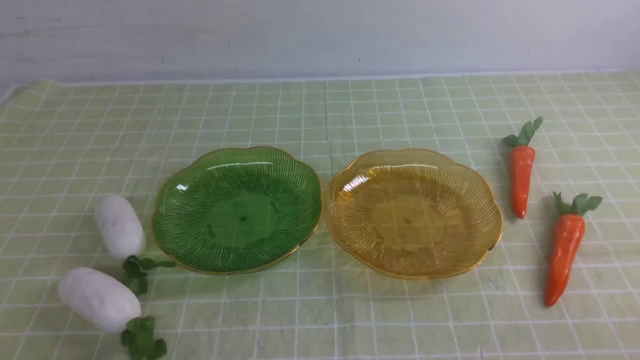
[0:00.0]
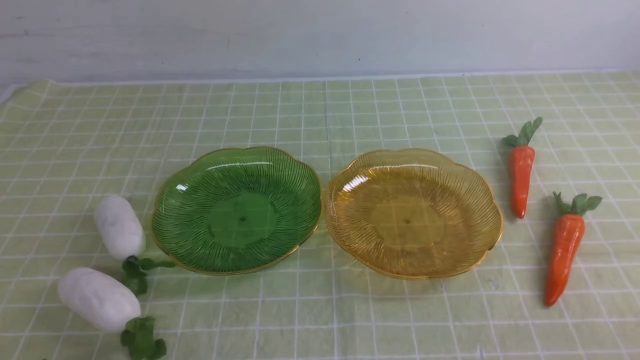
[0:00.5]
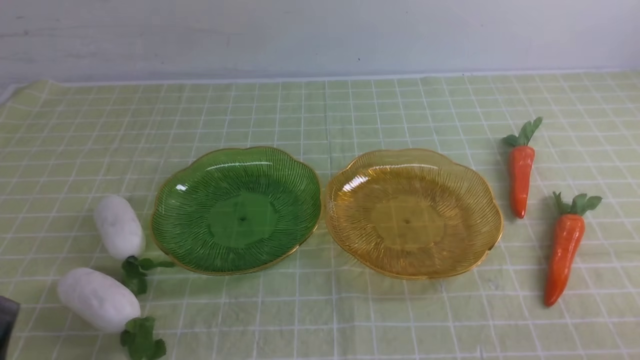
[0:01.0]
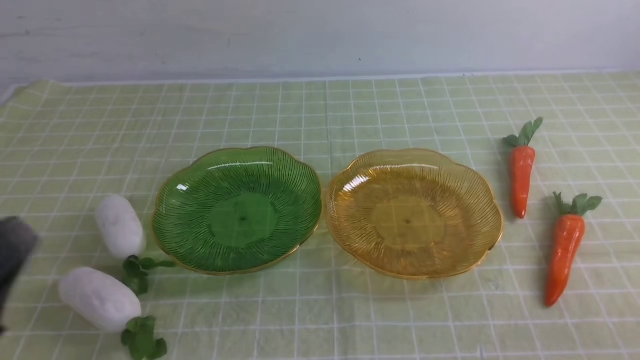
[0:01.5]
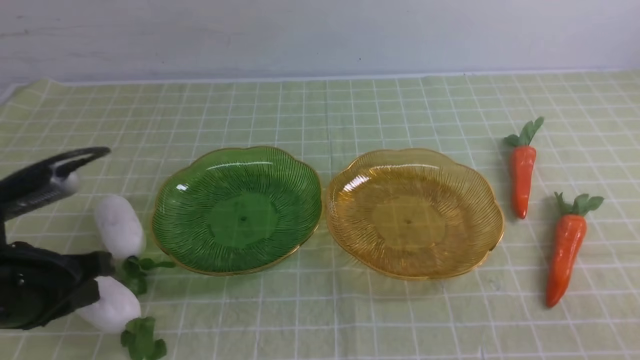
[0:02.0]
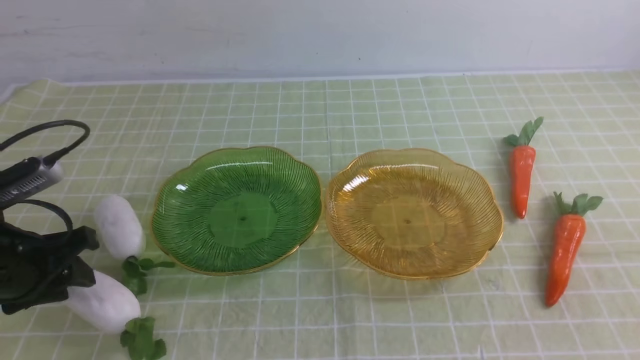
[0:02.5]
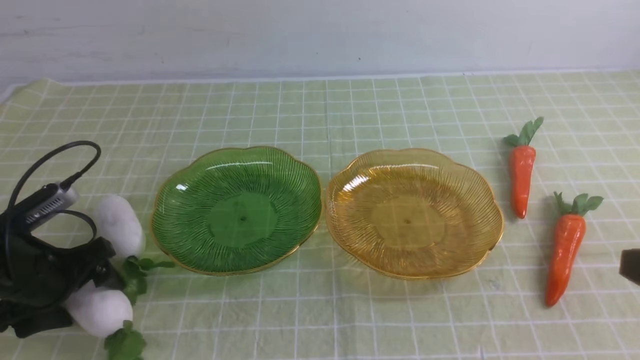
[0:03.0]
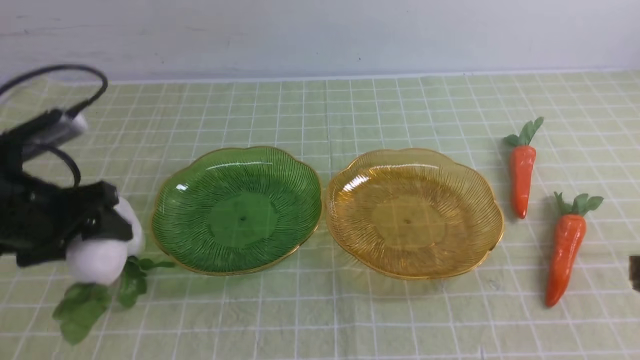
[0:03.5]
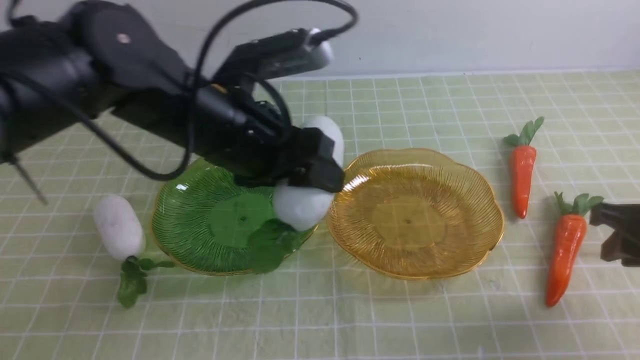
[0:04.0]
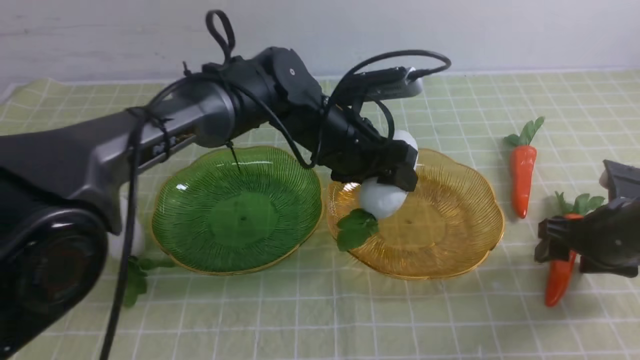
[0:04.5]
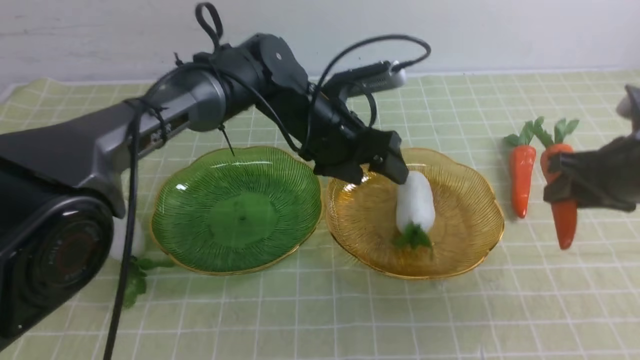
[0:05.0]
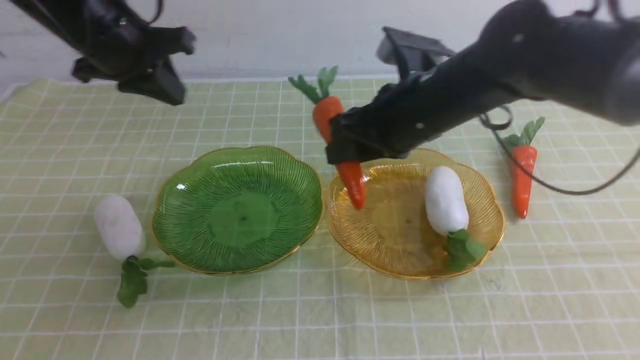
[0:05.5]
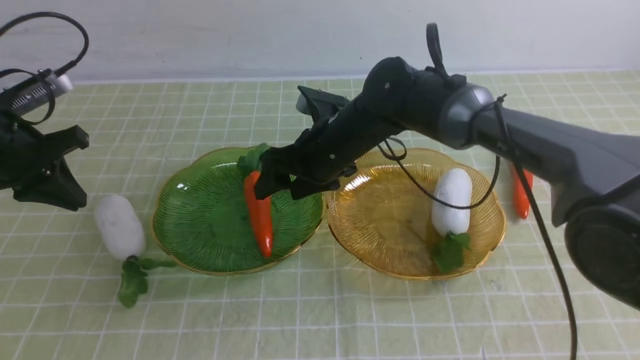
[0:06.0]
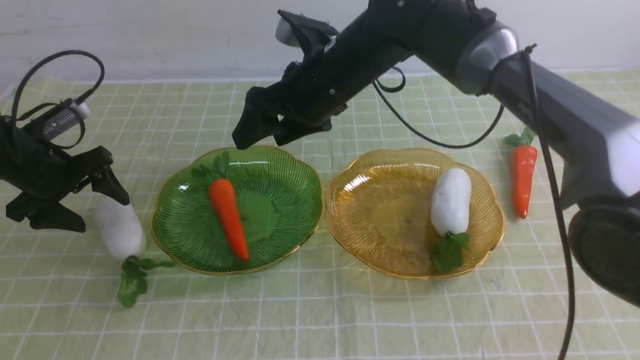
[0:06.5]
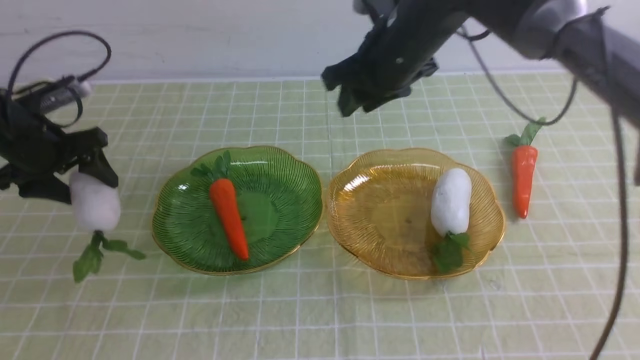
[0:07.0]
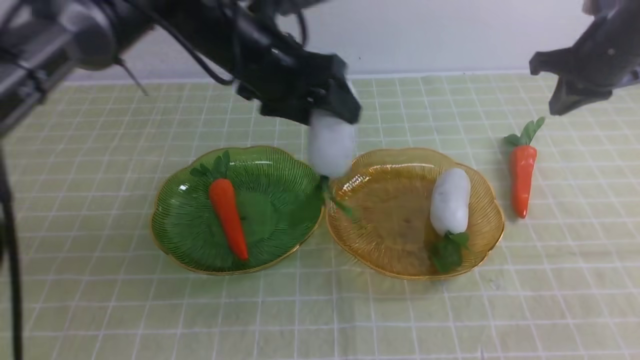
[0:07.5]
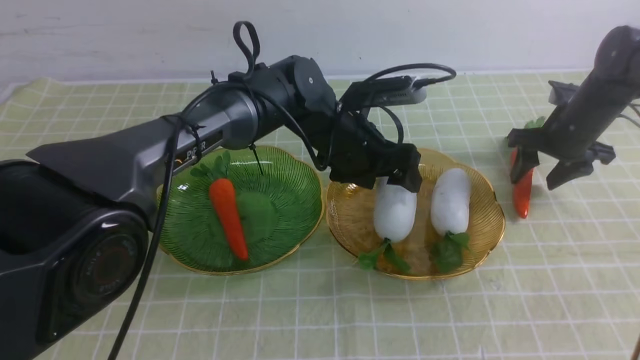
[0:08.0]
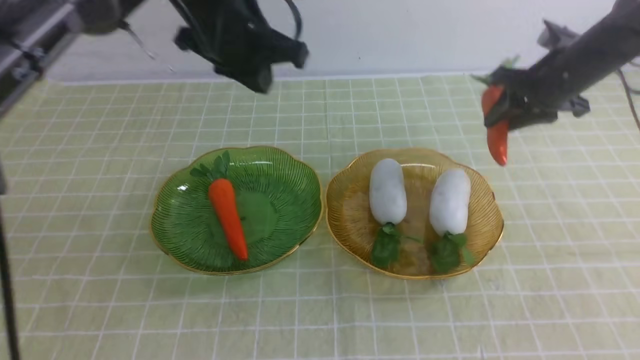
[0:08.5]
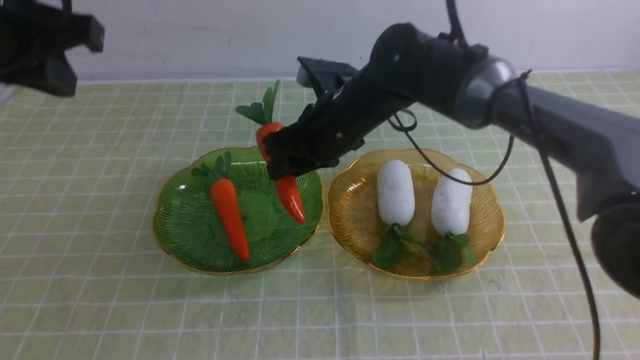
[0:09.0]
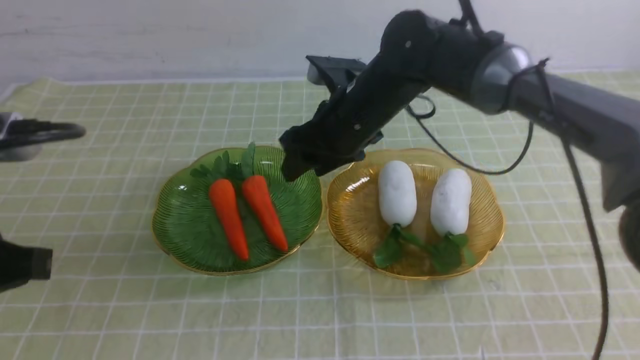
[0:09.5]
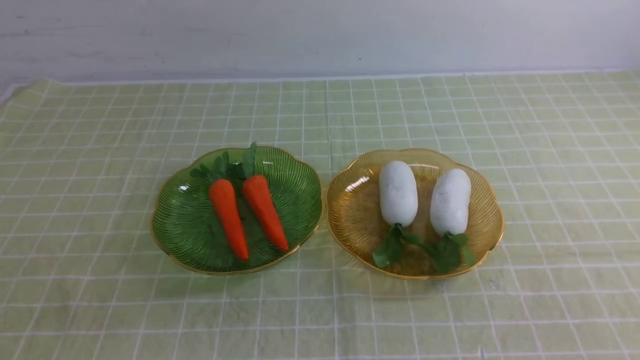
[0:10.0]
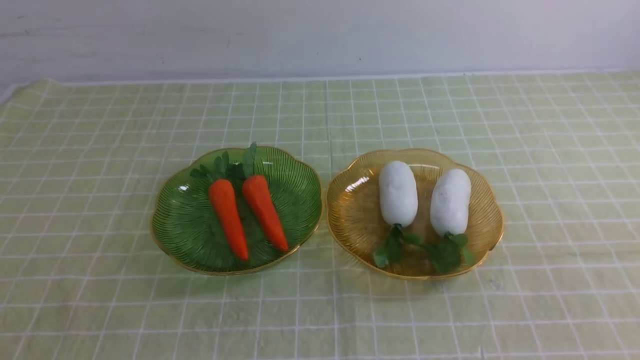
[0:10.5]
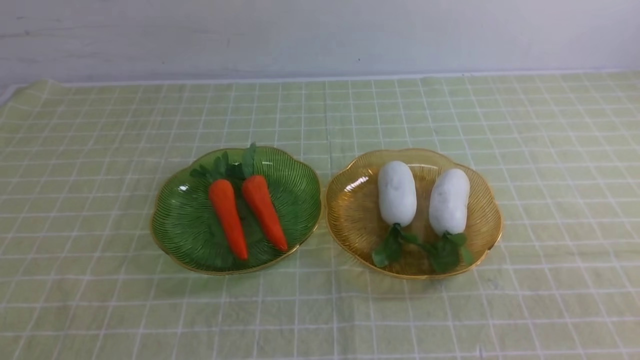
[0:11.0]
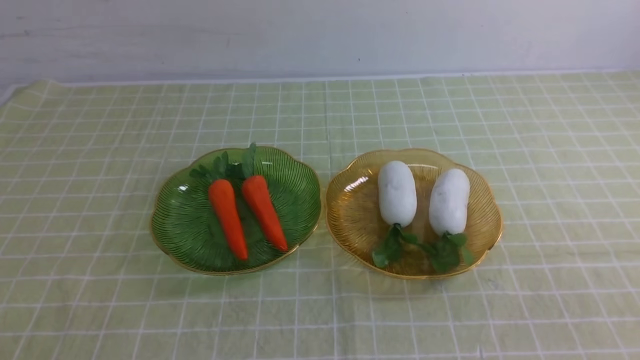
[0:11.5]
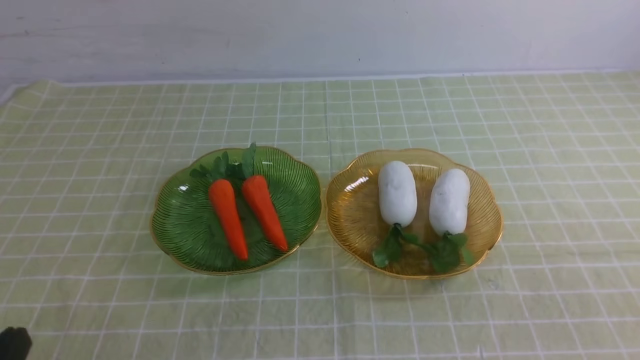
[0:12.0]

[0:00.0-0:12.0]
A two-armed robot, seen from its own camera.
Step, 0.0 to 5.0 s: use the left arm to grab a radish and put it into the right plate.
Step, 5.5 to 6.5 s: use the right arm to grab a carrot and put it into the left plate.
Step, 7.0 to 8.5 s: use the left arm to grab a radish and put it into the right plate.
Step, 9.0 to 10.0 s: use the right arm to grab a carrot and put it into the left plate.
0.0 to 2.0 s: The left gripper goes roughly 15 cm forward and upward.
2.0 to 4.0 s: The right gripper travels forward by about 20 cm, and opens up. The left gripper is displaced to the right and forward by some 20 cm, and opens its fingers.
4.0 to 6.0 s: The right gripper shifts approximately 35 cm to the left and forward, and opens; the left gripper moves to the left, approximately 25 cm, and closes up.
6.0 to 8.0 s: The grippers both shift to the right by some 35 cm. The left gripper opens. Meanwhile the right gripper closes, then opens again.
8.0 to 10.0 s: The right gripper travels upward and backward by roughly 40 cm, and closes its fingers. Meanwhile the left gripper moves backward and to the left, roughly 50 cm, and closes up.

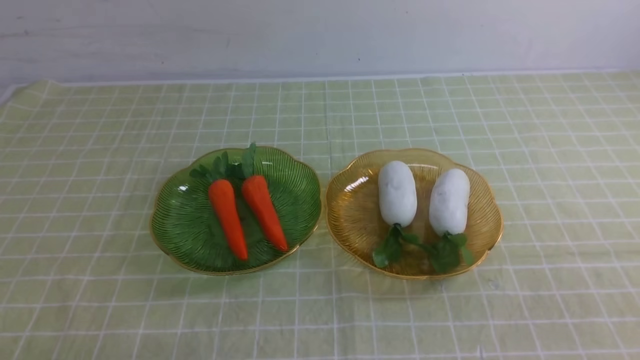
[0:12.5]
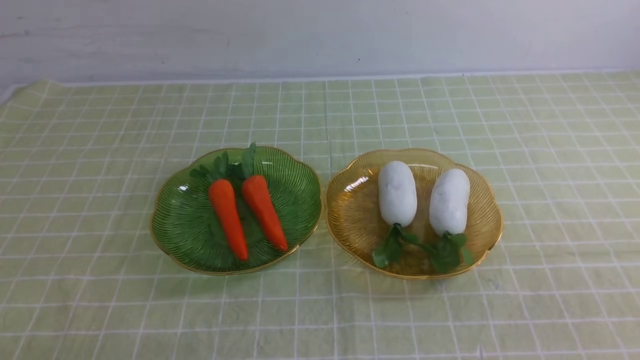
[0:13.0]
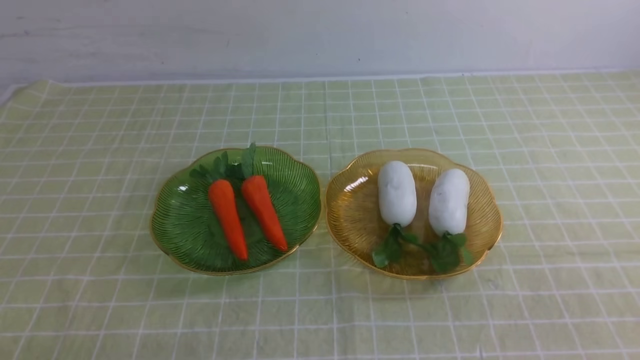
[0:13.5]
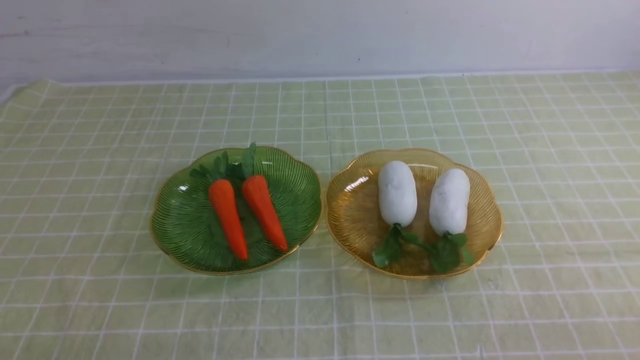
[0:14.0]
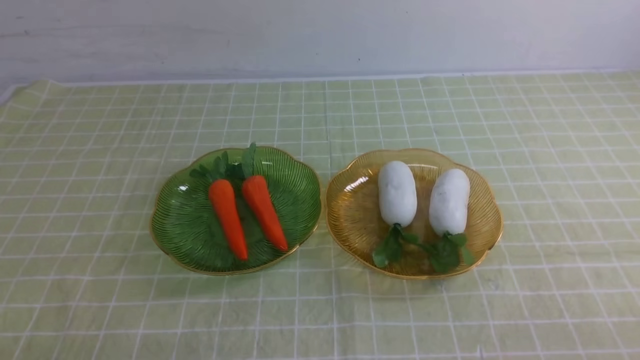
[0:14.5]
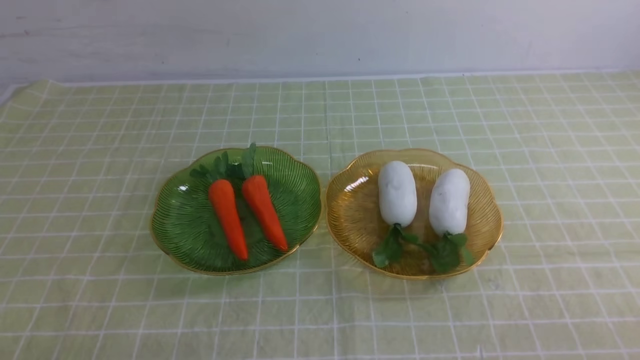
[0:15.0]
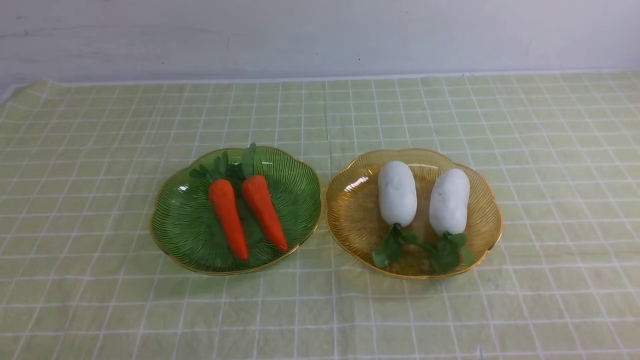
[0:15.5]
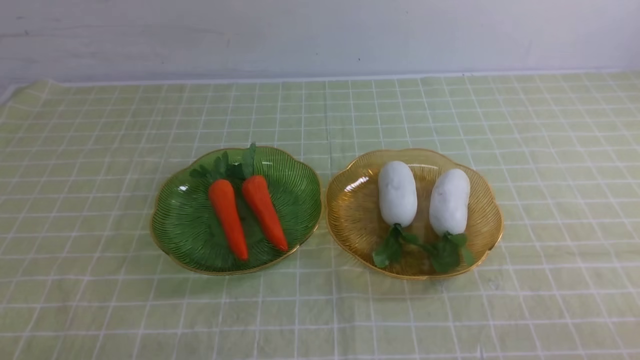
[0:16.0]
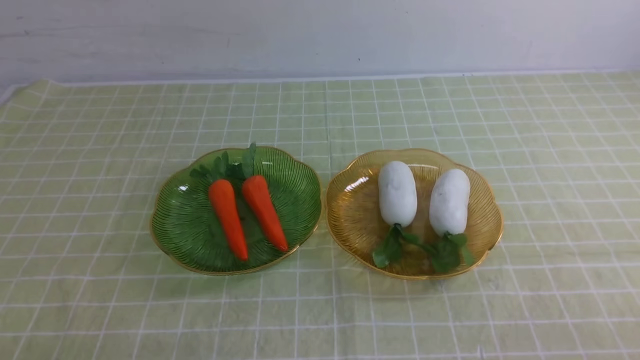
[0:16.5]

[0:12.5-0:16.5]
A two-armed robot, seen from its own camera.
14.5 to 16.5 s: Both grippers stay put.

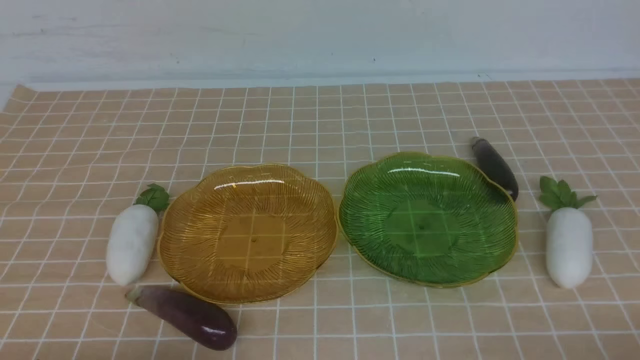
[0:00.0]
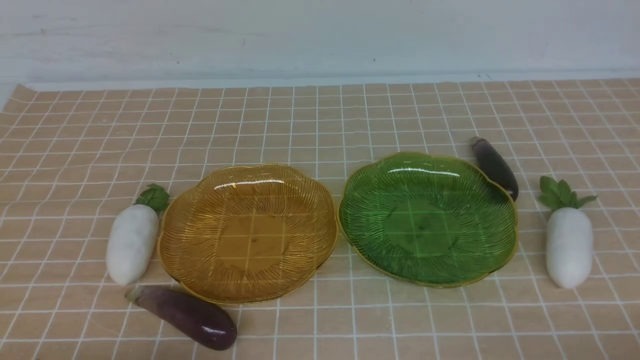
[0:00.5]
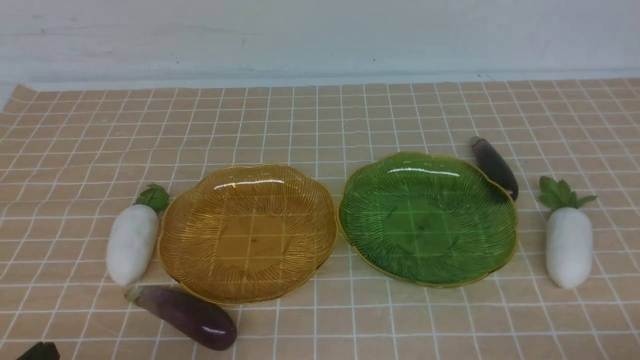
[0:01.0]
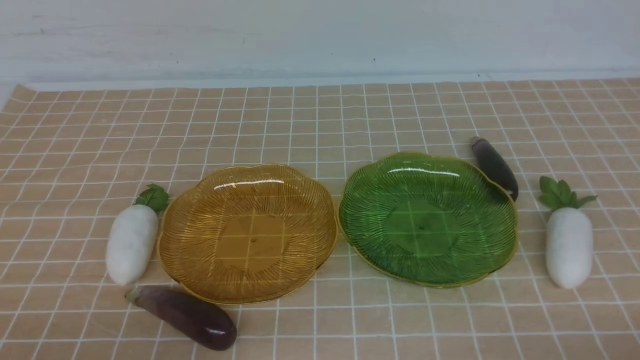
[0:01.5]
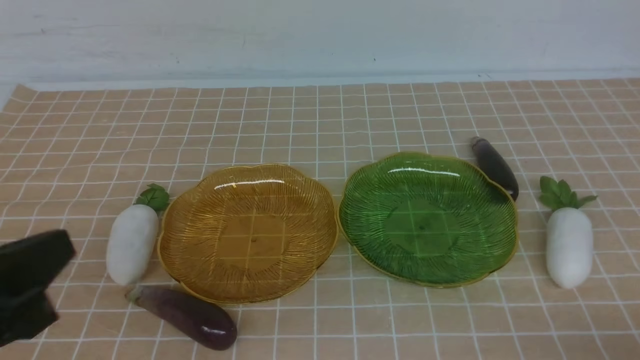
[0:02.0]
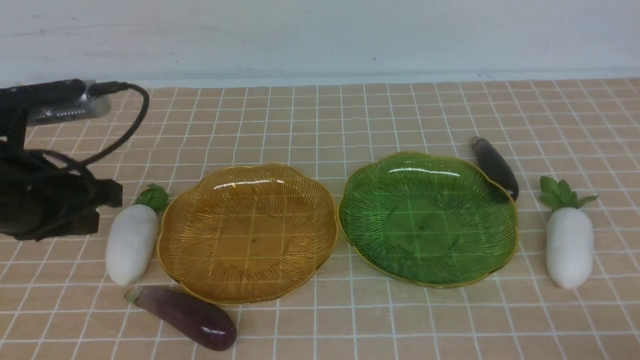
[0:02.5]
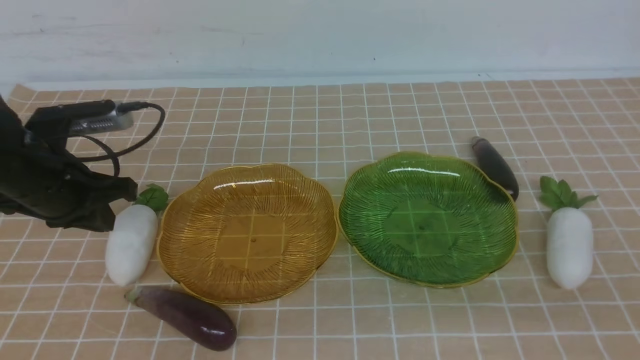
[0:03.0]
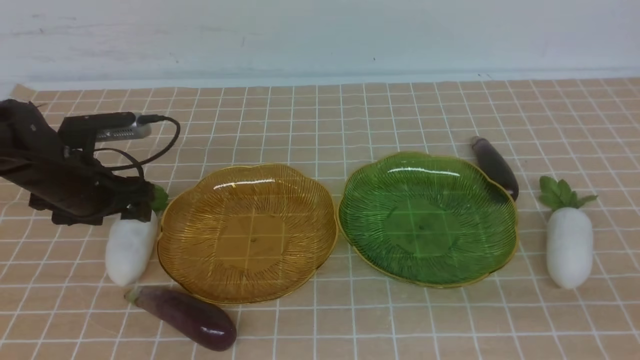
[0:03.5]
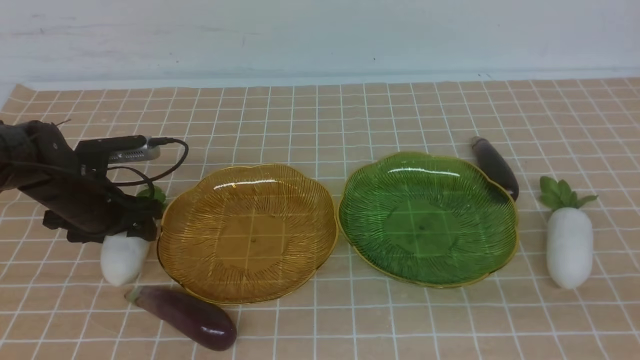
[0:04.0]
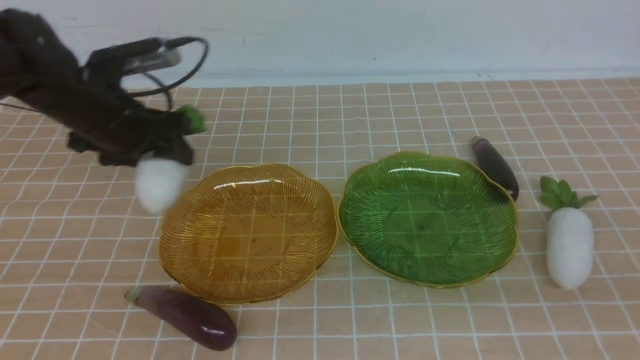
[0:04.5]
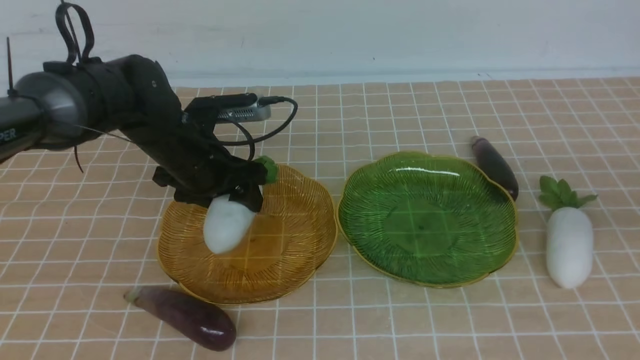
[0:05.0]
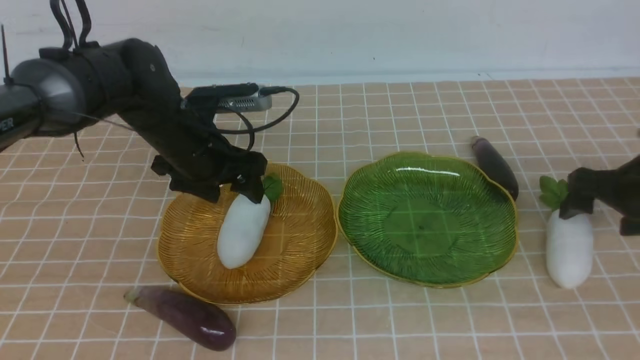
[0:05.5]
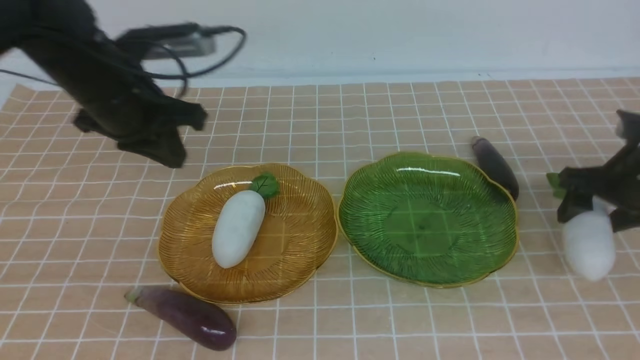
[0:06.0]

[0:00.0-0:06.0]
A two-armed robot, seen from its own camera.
Step, 0.0 to 5.5 s: use the left arm to grab a radish and put it into the left plate.
0.0 to 2.0 s: The left gripper is displaced upward by some 15 cm.
2.0 to 4.0 s: The left gripper travels forward by some 30 cm, and opens up. The right gripper heads upward, covering some 15 cm.
4.0 to 6.0 s: The left gripper shifts some 15 cm backward and upward, and closes its fingers. Meanwhile the right gripper travels forward and to the left by about 30 cm, and opens its fingers.
